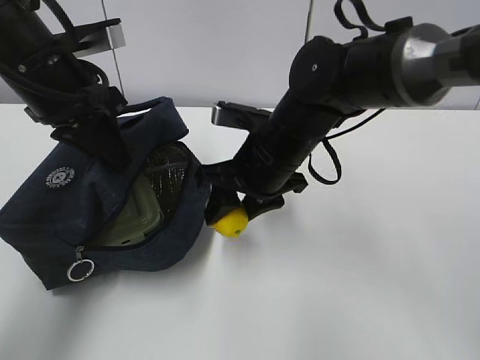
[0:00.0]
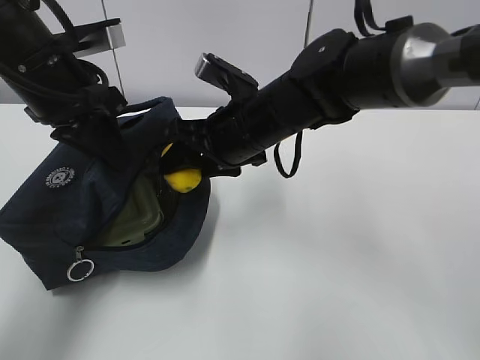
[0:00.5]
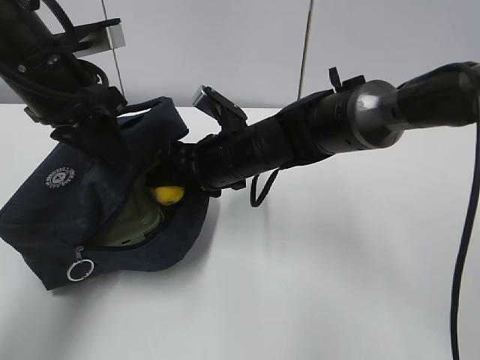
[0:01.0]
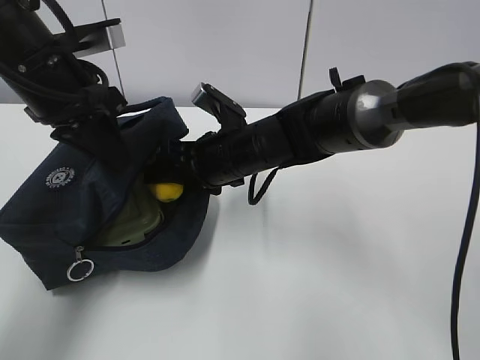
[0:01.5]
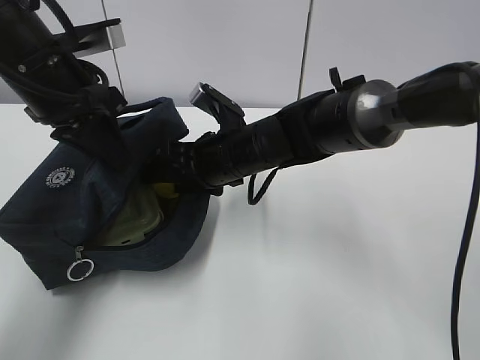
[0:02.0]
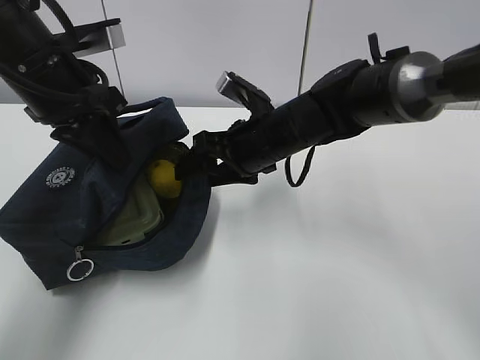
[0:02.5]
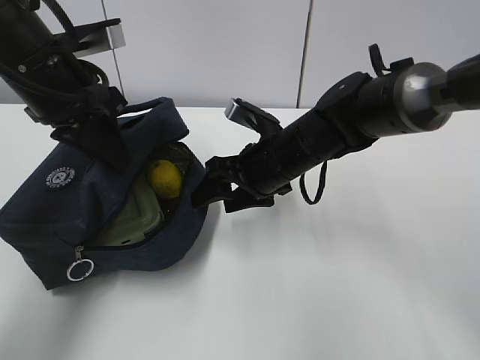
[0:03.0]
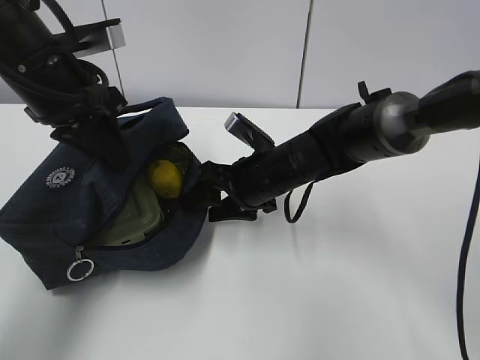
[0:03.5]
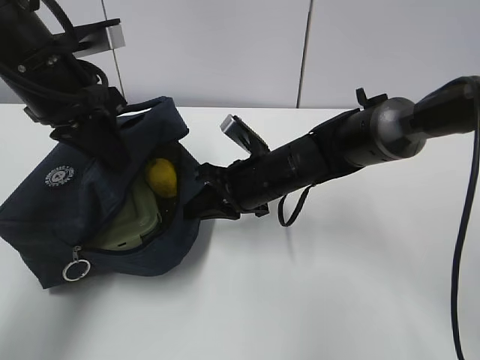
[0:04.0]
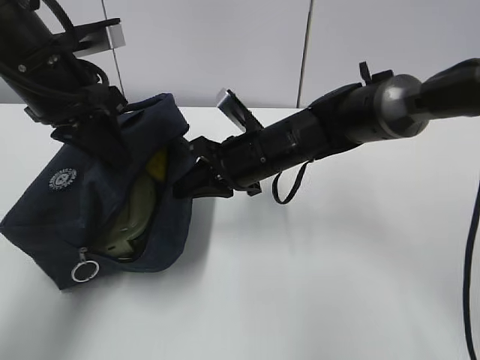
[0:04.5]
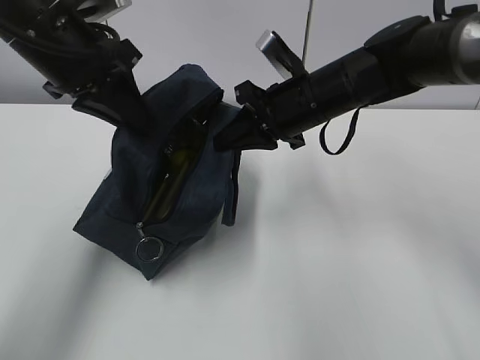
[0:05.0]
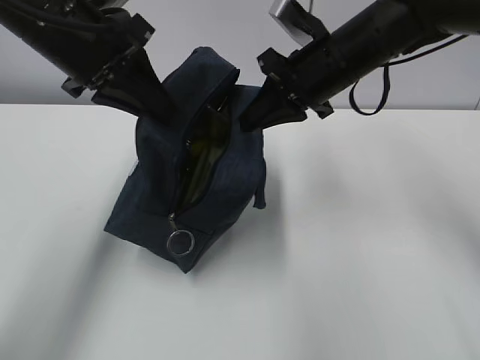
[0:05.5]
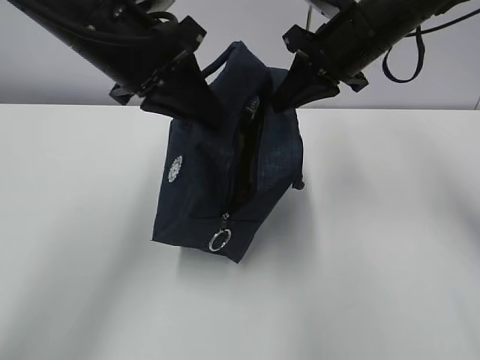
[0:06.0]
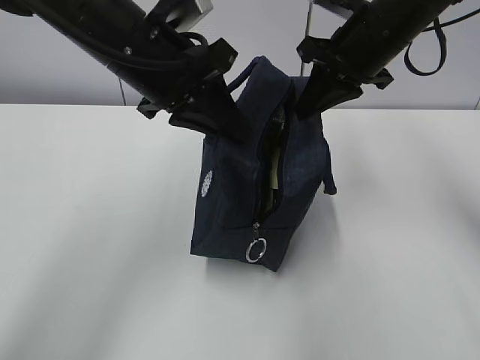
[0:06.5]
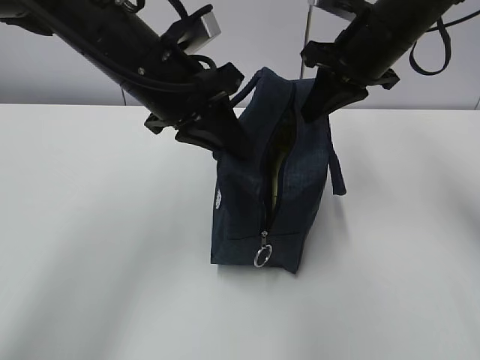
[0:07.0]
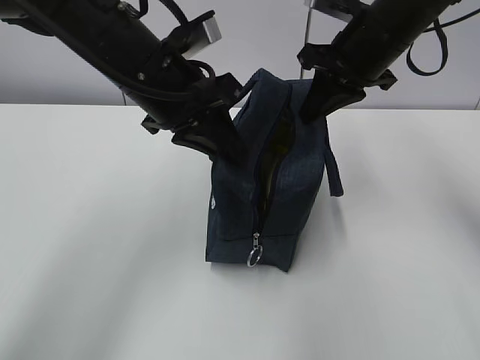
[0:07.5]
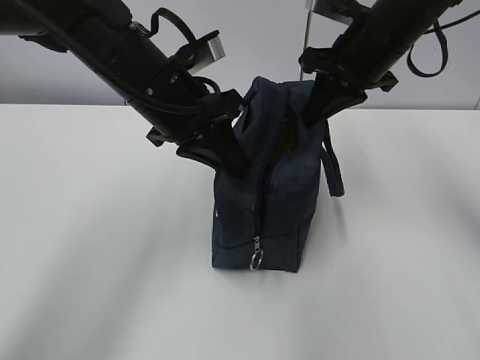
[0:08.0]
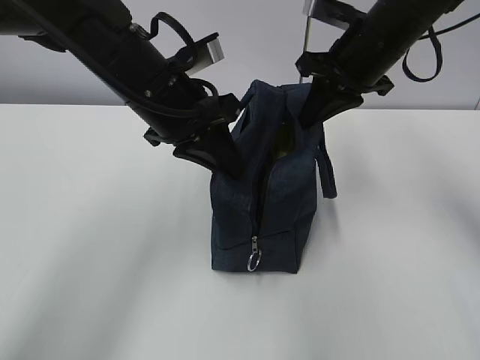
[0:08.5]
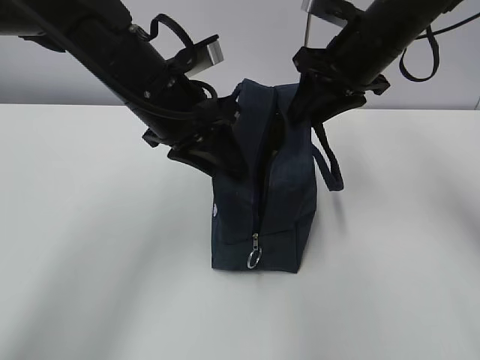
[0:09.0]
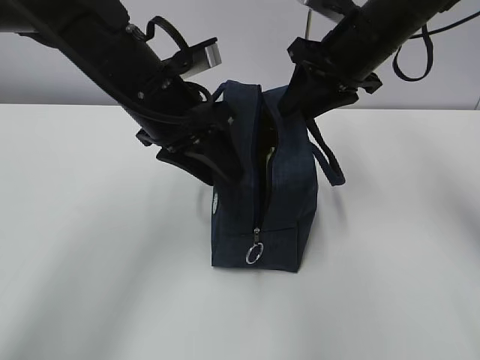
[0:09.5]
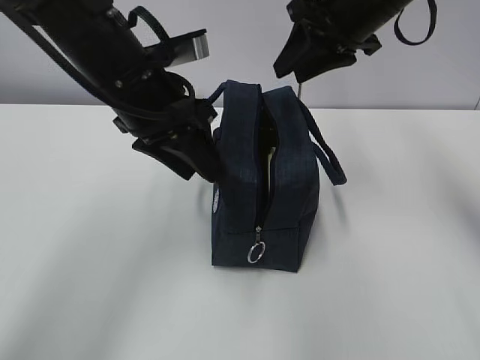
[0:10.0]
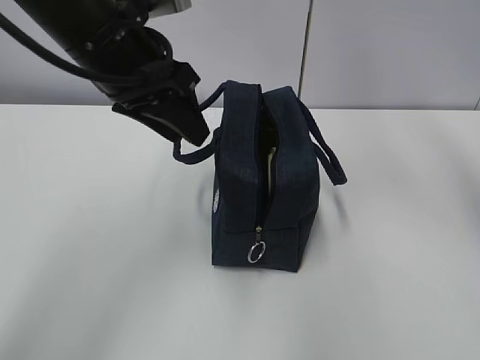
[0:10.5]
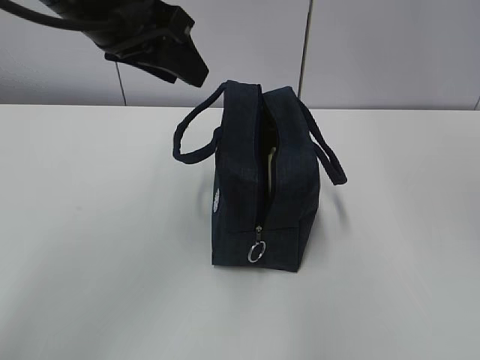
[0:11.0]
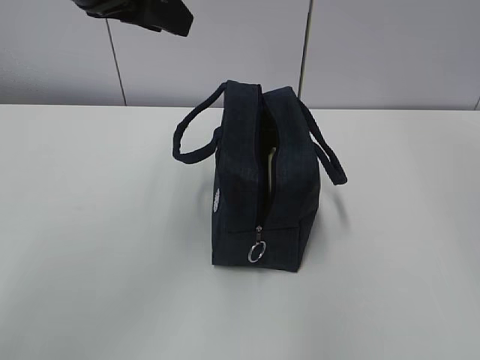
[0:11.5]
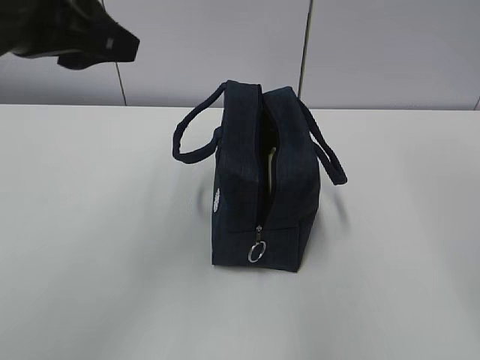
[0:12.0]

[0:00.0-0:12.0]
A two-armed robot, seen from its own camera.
Step, 0:00.0 to 0:02.0: Stand the lunch bag upright with your right hand.
0:00.0 to 0:02.0: The right gripper shifts by approximately 5 cm.
0:02.0 to 0:04.0: The right gripper ends up approximately 5 cm from where it was, and closes its fingers.
0:04.0 to 0:06.0: The left gripper heads to the right, covering approximately 5 cm. Meanwhile the right gripper is displaced upward and to the right by approximately 20 cm.
0:06.0 to 0:08.0: The left gripper is displaced downward by approximately 5 cm.
0:08.0 to 0:10.0: The left gripper opens, while the right gripper opens up.
0:10.0 to 0:12.0: The left gripper is displaced upward, to the left and backward by about 15 cm. Meanwhile the right gripper shifts roughly 25 cm backward.

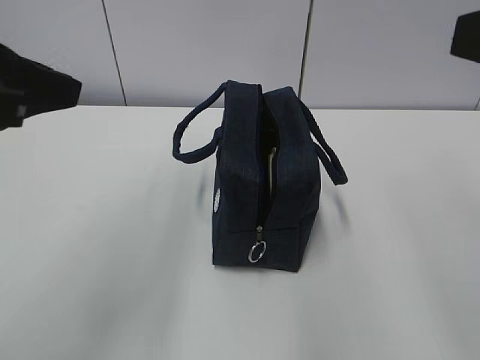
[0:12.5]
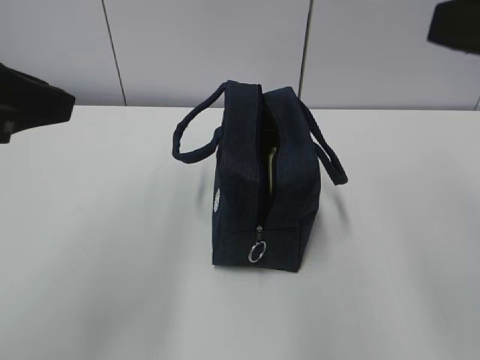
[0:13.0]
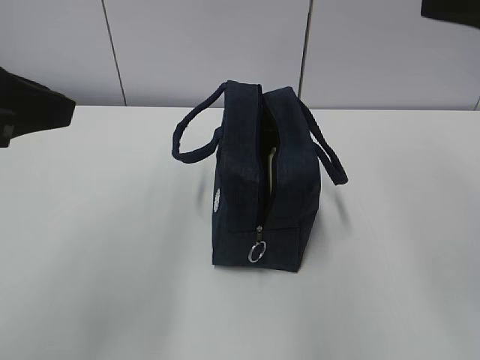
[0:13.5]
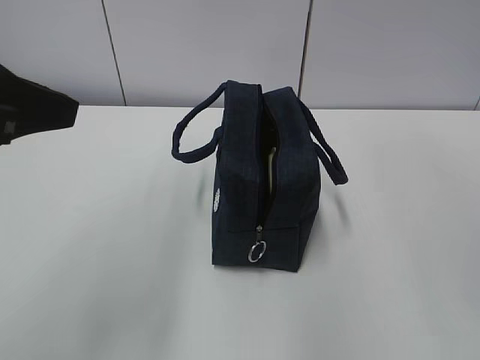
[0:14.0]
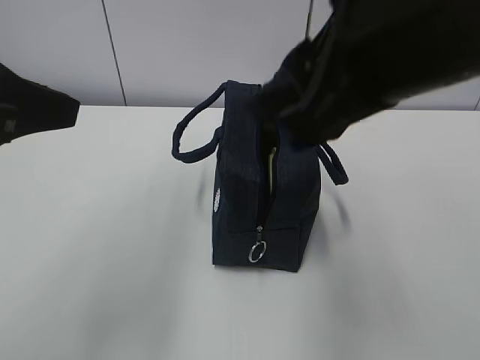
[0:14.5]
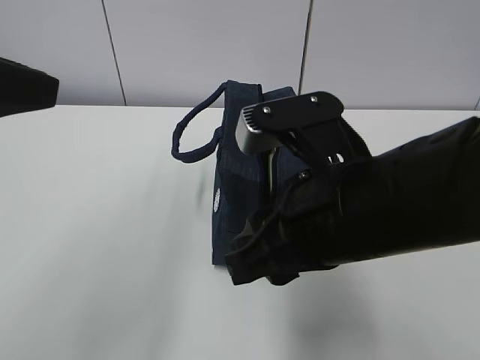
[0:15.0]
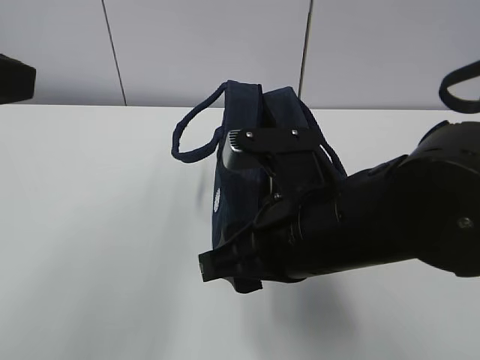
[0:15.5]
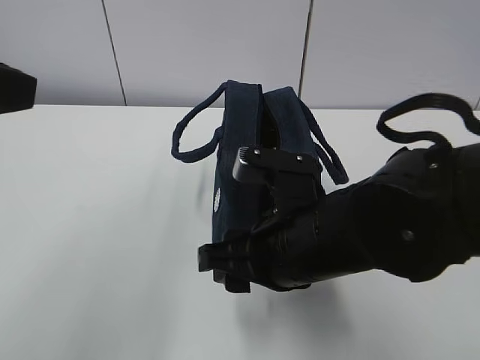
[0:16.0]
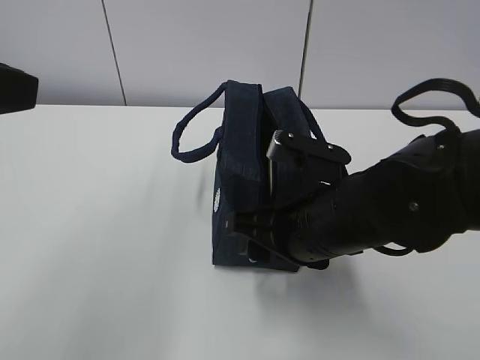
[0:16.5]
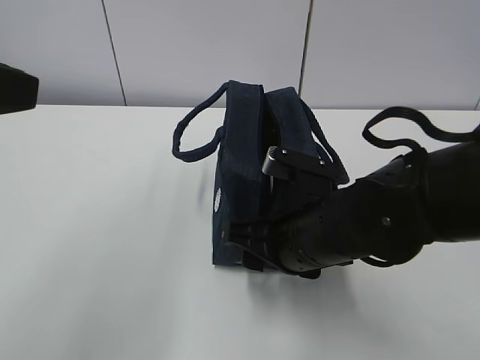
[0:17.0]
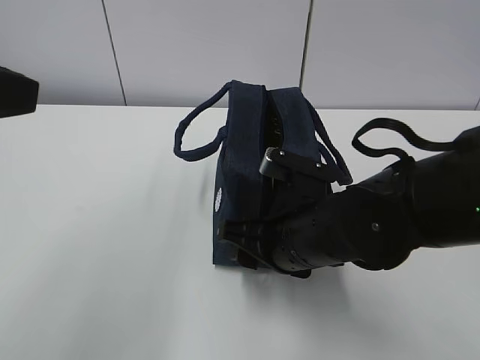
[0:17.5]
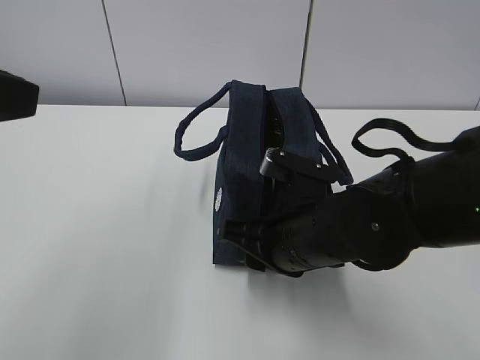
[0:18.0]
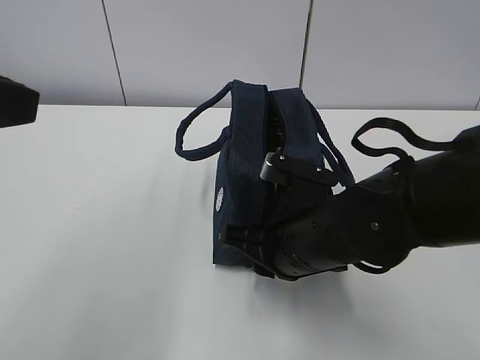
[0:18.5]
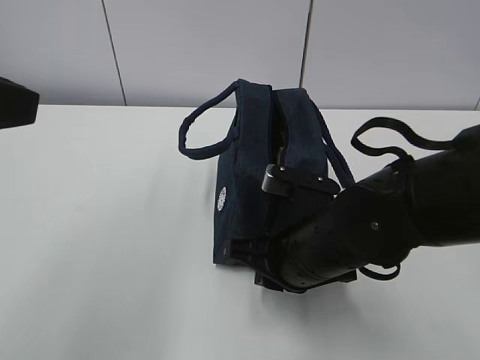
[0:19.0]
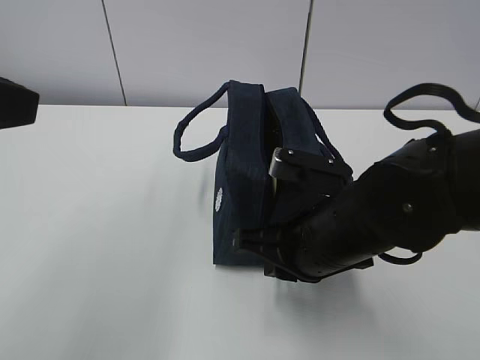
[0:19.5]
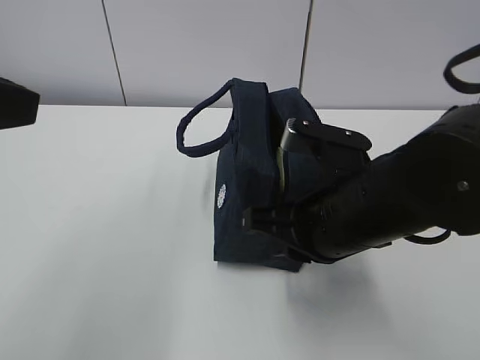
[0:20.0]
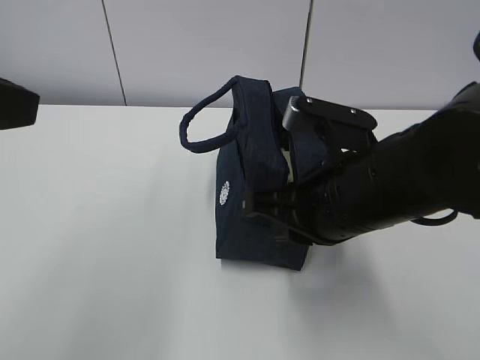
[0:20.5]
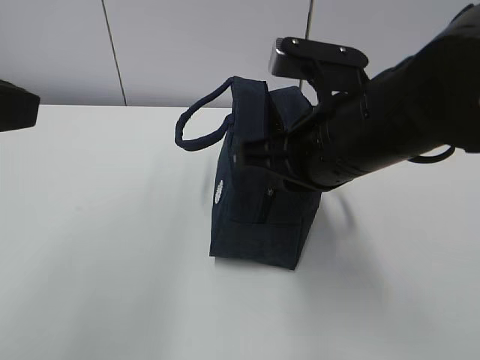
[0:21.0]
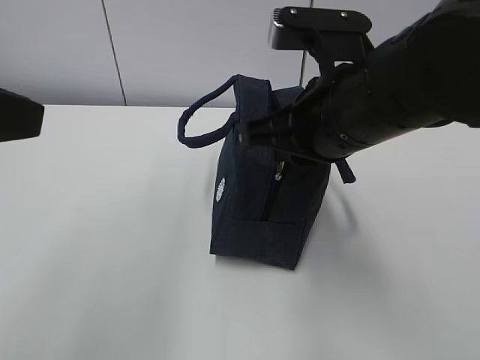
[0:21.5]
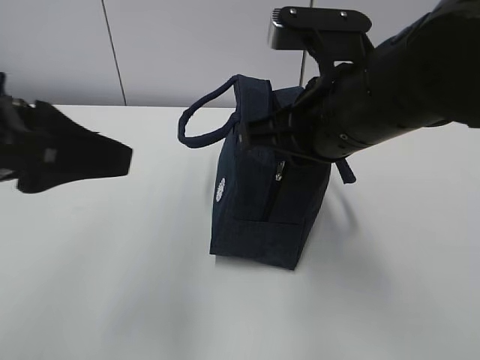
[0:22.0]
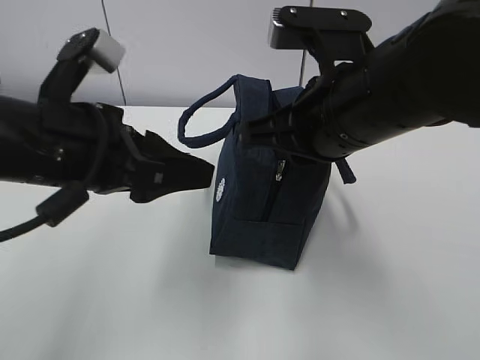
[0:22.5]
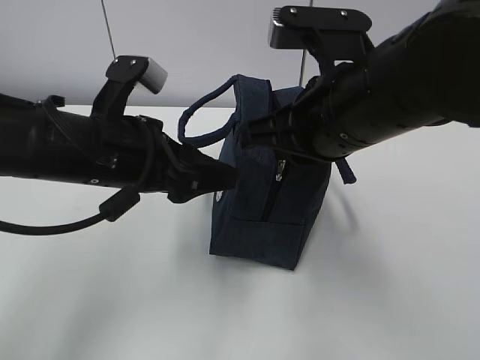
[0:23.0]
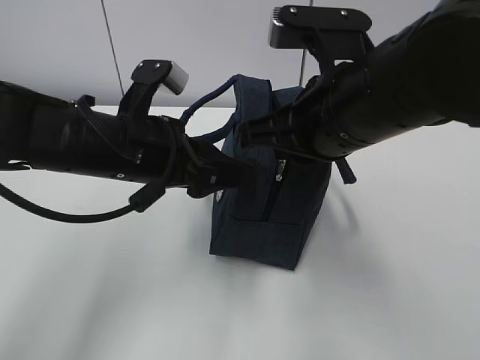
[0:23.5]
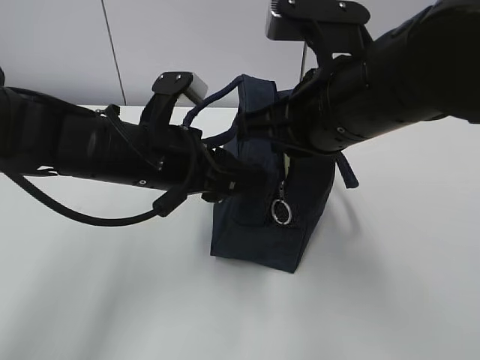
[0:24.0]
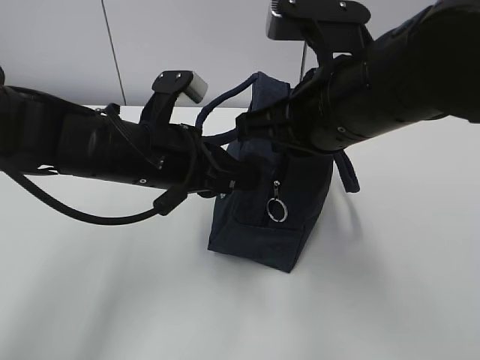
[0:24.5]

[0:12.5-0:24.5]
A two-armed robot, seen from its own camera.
0:12.5 to 0:14.5: The right gripper moves to the left and forward, about 15 cm.
0:14.5 to 0:16.5: The right gripper goes about 20 cm downward.
0:16.5 to 0:18.5: The right gripper closes its fingers.
0:18.5 to 0:20.5: The right gripper goes about 10 cm upward.
0:20.5 to 0:22.5: The right gripper travels upward by some 5 cm; the left gripper moves downward, forward and to the right, approximately 15 cm.
0:22.5 to 0:24.5: The left gripper shifts some 10 cm downward, forward and to the right, and closes its fingers.

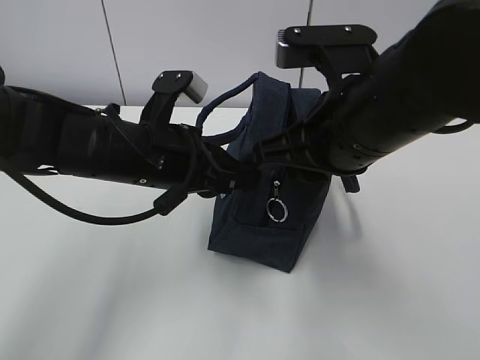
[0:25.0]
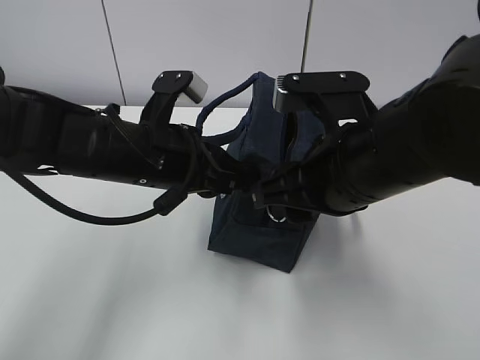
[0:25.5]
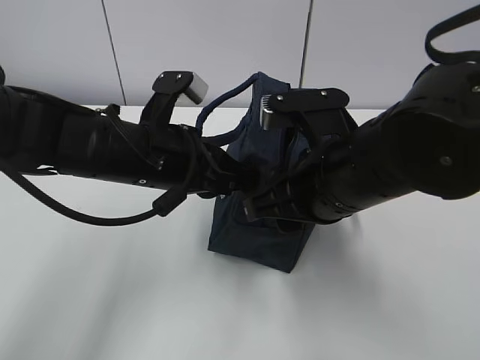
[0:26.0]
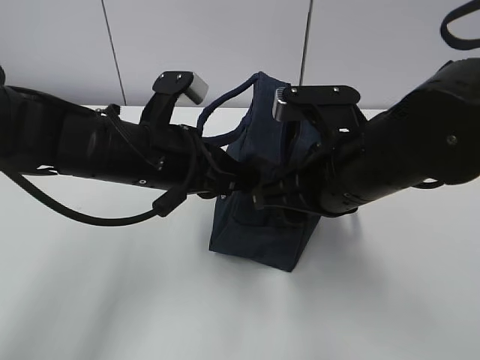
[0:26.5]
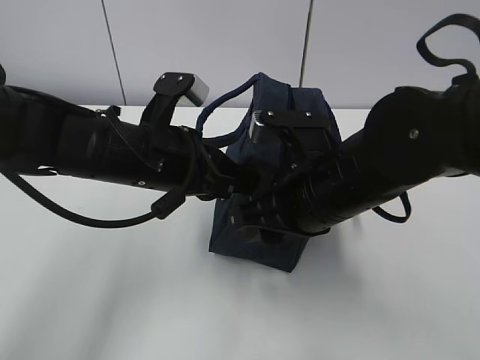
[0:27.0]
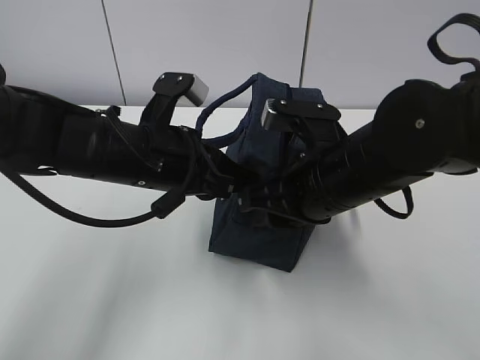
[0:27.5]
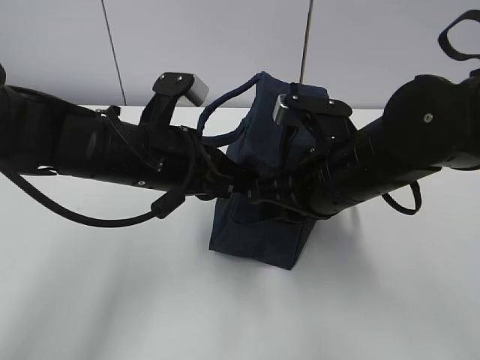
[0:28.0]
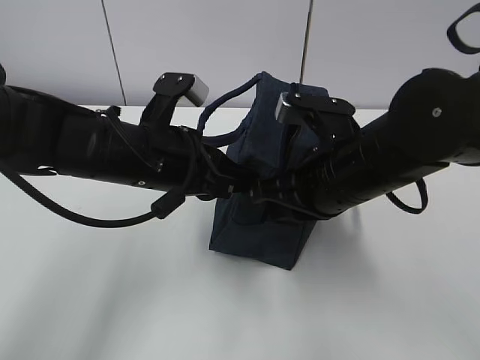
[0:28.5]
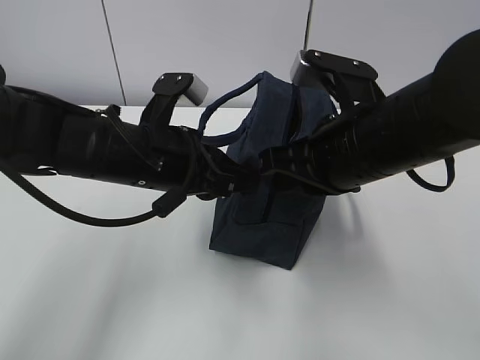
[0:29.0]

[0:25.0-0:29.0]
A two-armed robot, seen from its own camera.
0:25.0 to 0:27.0: The right gripper travels downward by some 10 cm.
0:27.0 to 0:29.0: The right gripper ends up roughly 5 cm from where it was, and closes.
